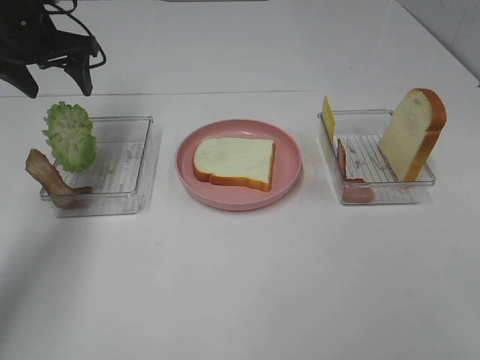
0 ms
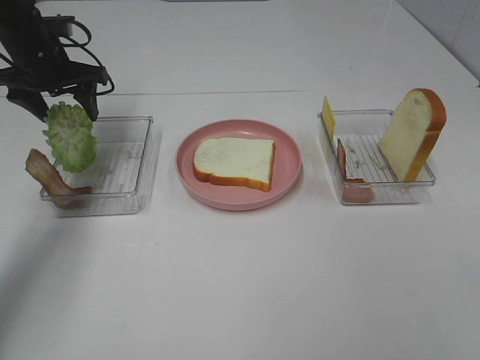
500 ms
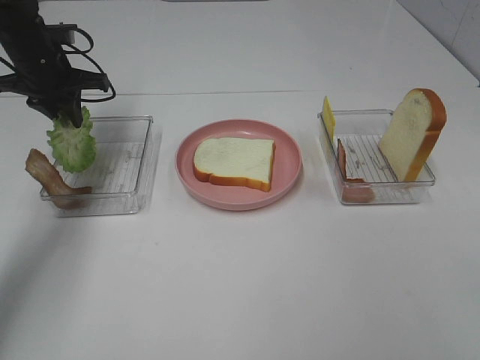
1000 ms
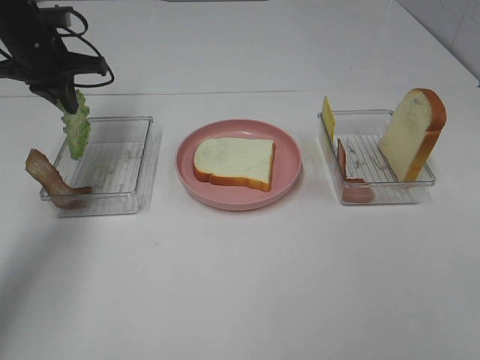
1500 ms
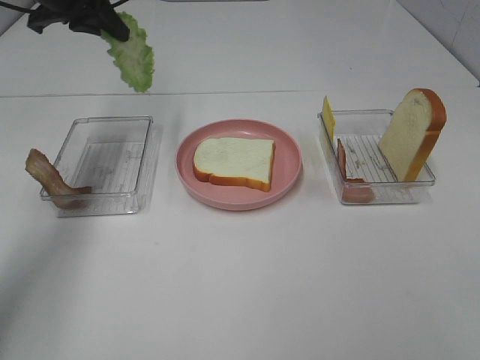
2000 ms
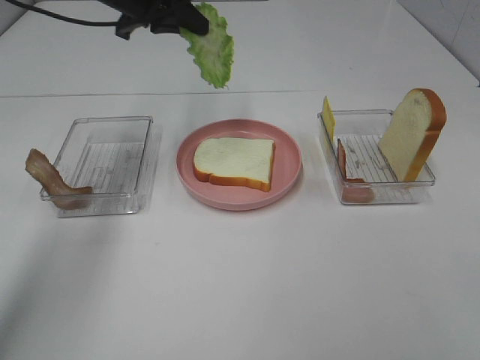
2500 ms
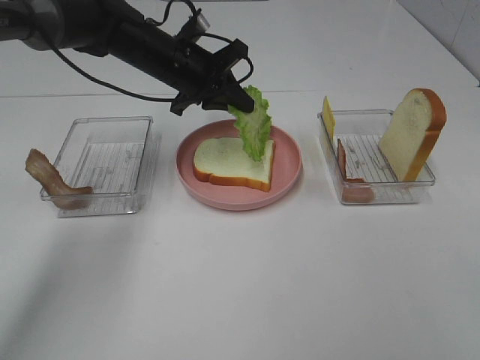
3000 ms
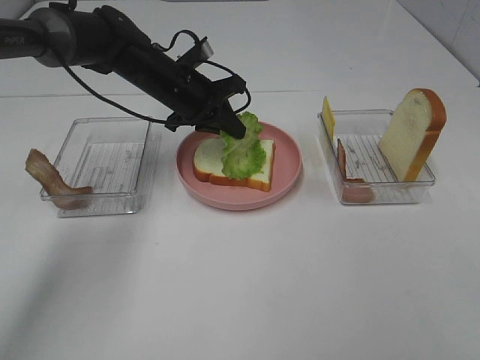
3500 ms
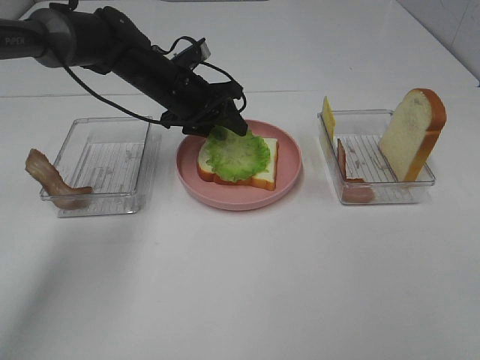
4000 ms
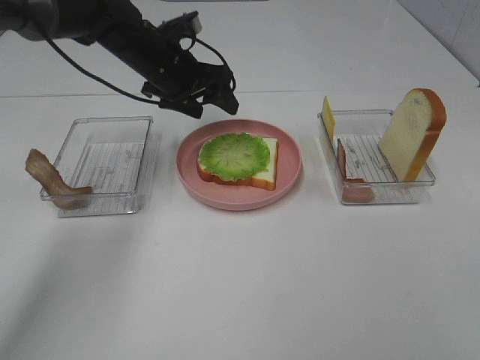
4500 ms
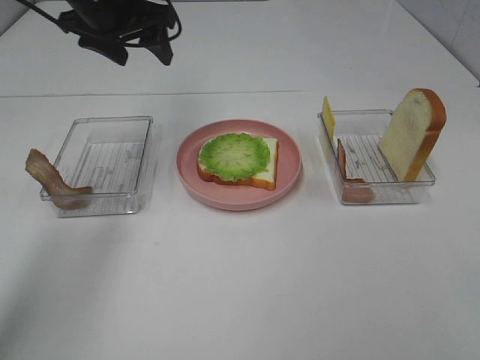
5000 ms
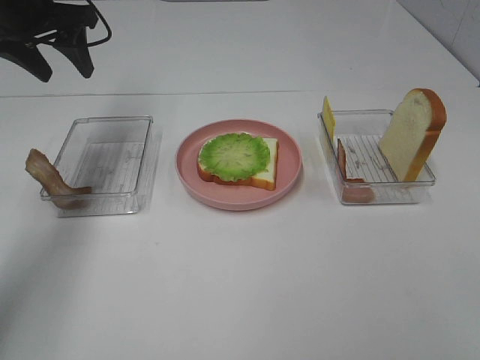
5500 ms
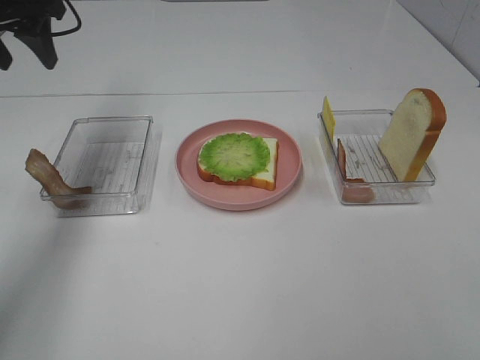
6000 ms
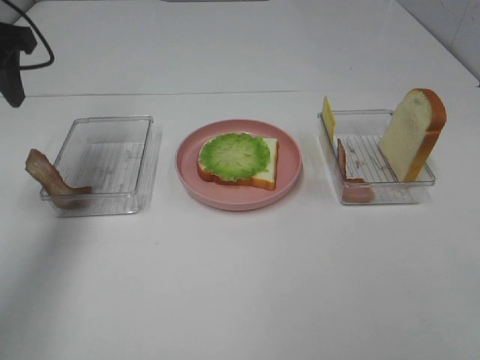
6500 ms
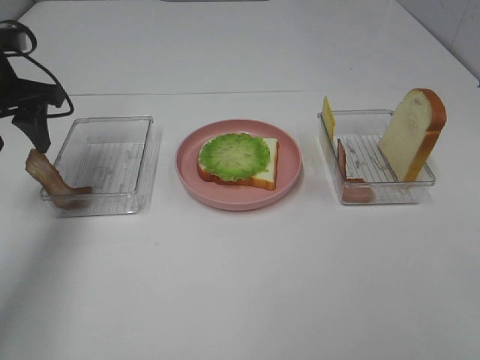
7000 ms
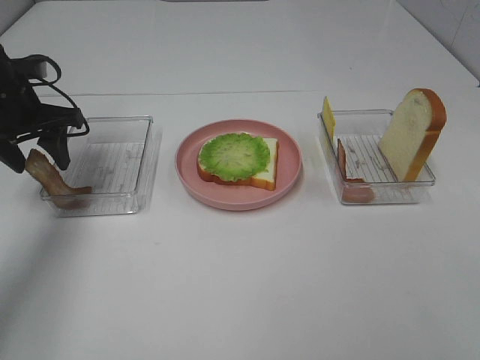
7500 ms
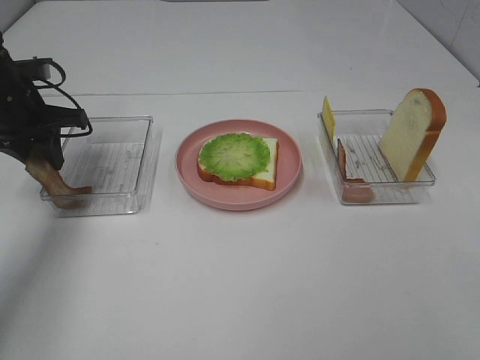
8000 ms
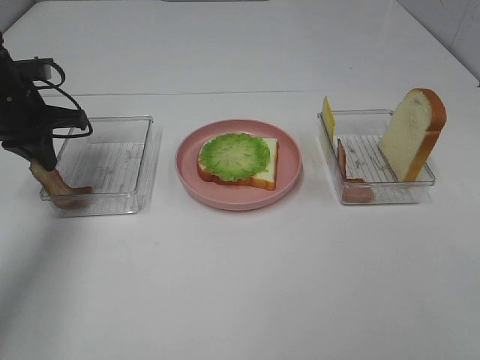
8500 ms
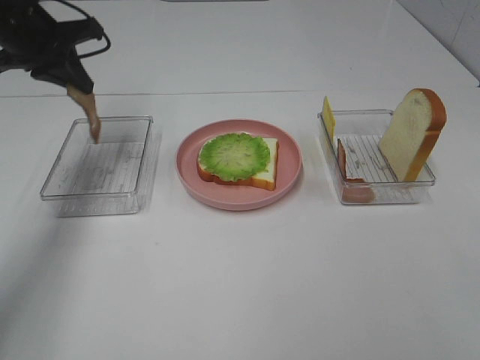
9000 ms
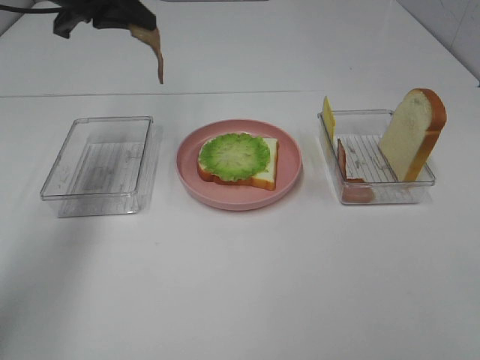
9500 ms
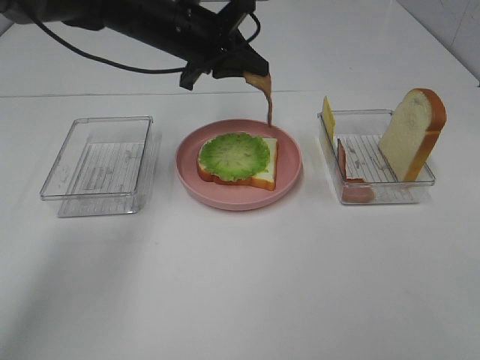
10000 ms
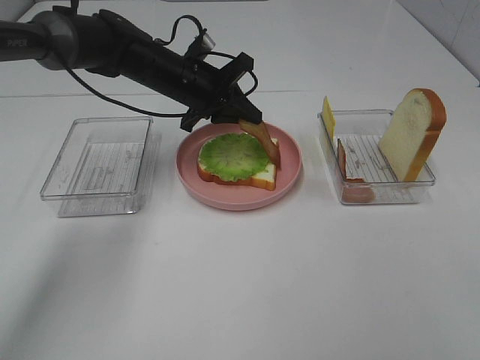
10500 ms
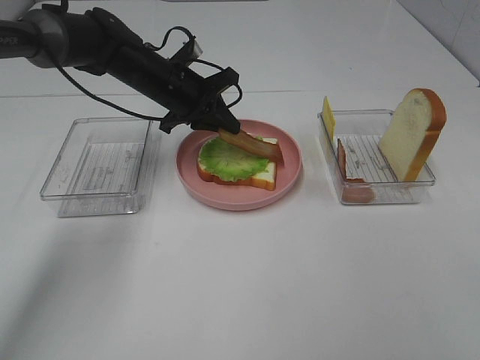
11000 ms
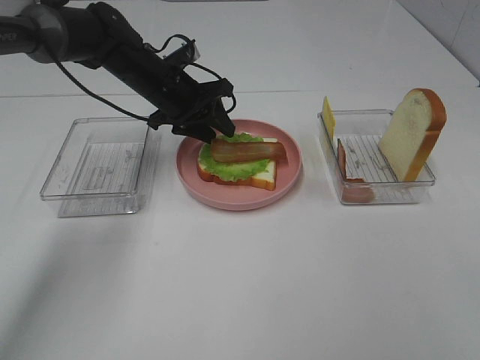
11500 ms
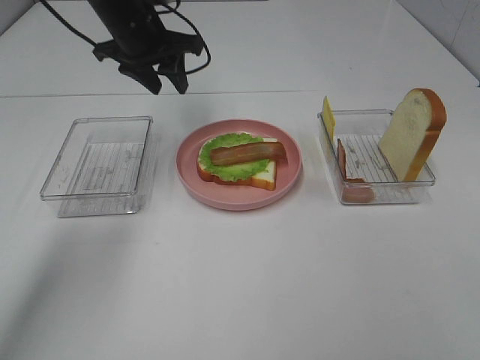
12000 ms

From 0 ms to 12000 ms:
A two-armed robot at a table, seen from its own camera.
Task of the whole recording: Make sandwiches.
Step, from 1500 ms to 4500 ms: Left hand:place the lettuce slice on the bread slice.
Step, from 5000 ms to 8000 ms: Left hand:grab the bacon.
Step, from 8500 ms to 11500 ms: Left hand:place bacon on lettuce slice.
From 0 ms to 2000 ms: The left gripper shifts approximately 5 cm upward, and closes up.
From 2000 ms to 4000 ms: The left gripper shifts some 20 cm downward and to the right, and opens its fingers.
From 4000 ms to 6000 ms: The left gripper is displaced to the left and upward by some 25 cm.
From 6000 ms to 8000 ms: The left gripper heads downward, covering about 15 cm, and closes.
From 8000 ms to 10000 ms: The left gripper travels to the right by roughly 20 cm, and closes.
From 10000 ms to 12000 ms: The left gripper is displaced to the left by about 5 cm, goes downward and returns, approximately 10 cm each way, and opens.

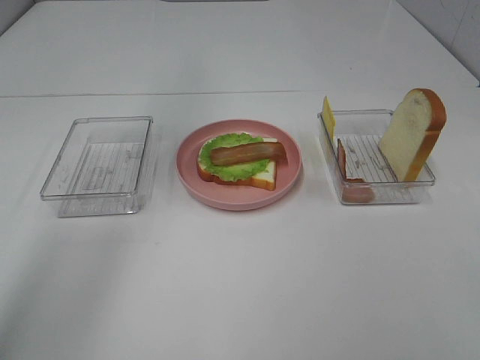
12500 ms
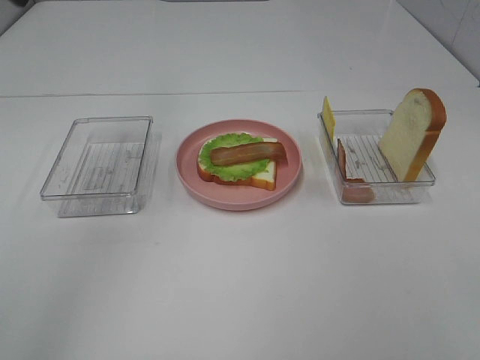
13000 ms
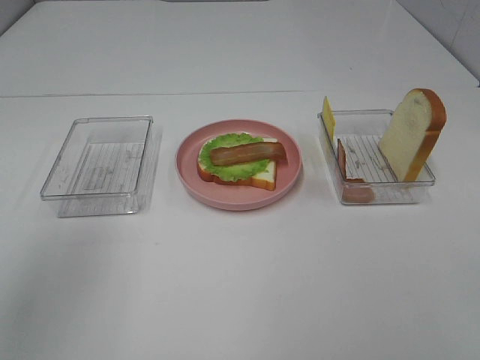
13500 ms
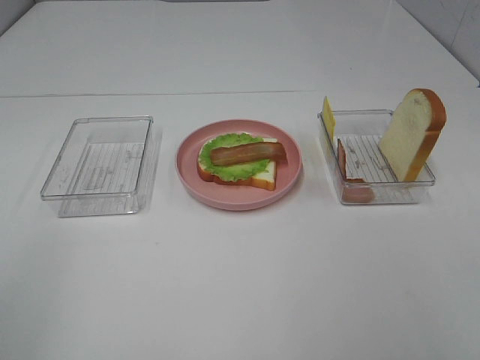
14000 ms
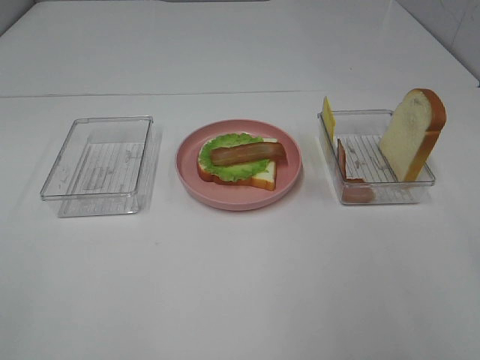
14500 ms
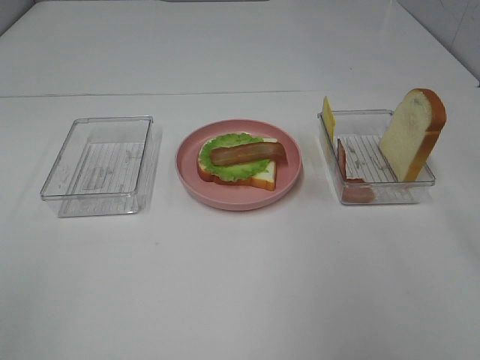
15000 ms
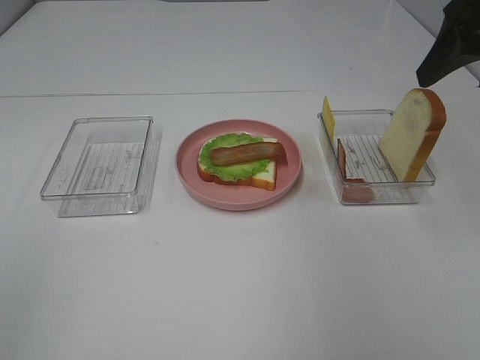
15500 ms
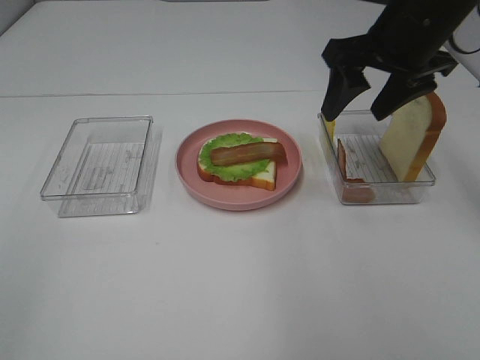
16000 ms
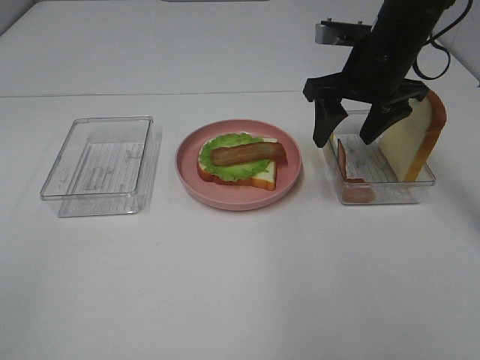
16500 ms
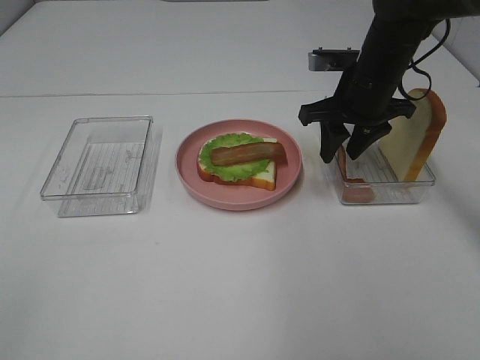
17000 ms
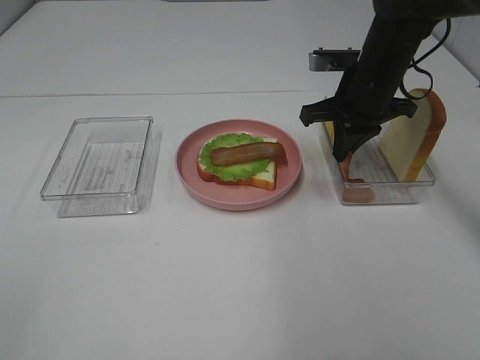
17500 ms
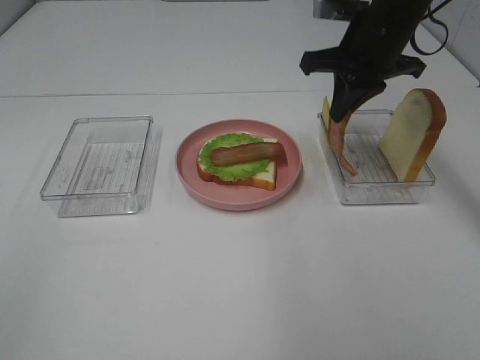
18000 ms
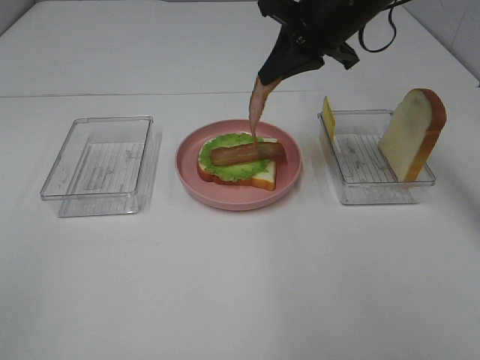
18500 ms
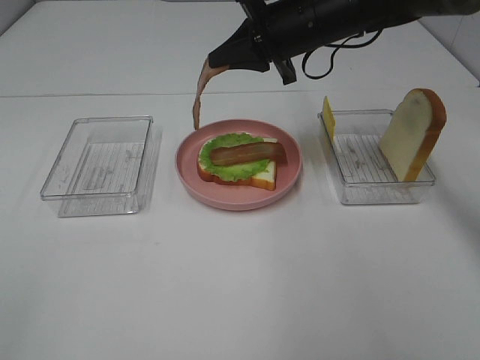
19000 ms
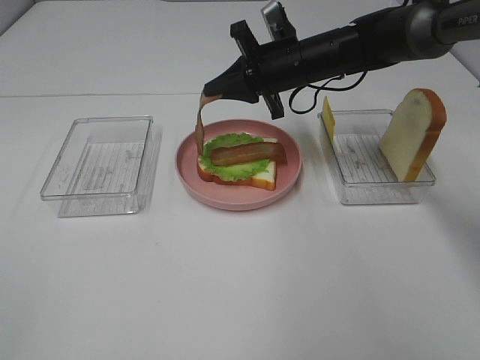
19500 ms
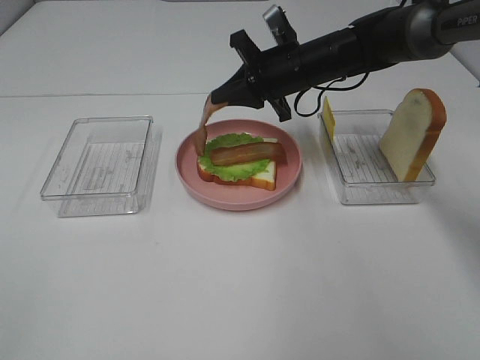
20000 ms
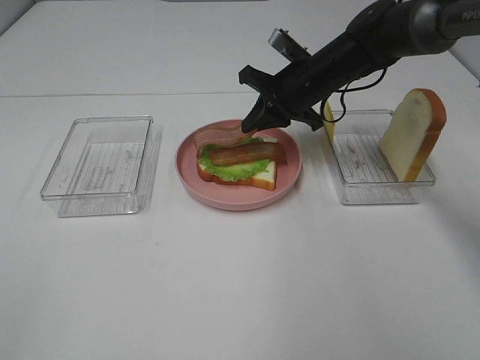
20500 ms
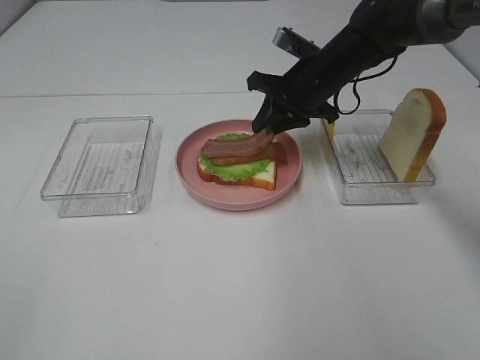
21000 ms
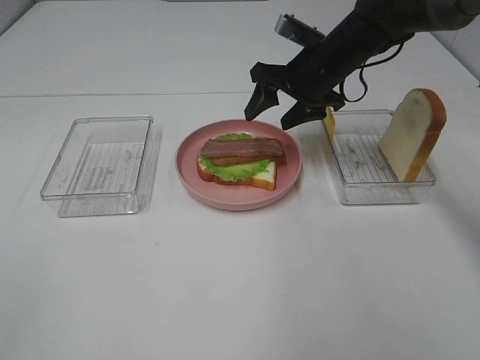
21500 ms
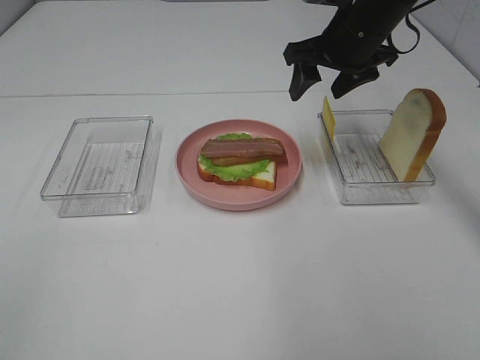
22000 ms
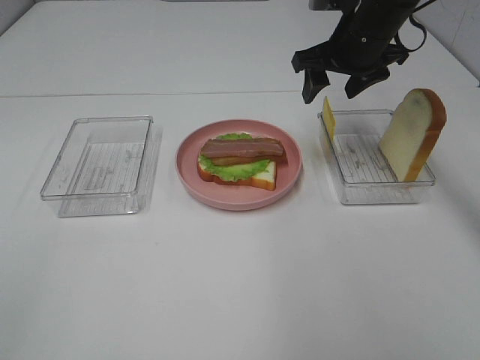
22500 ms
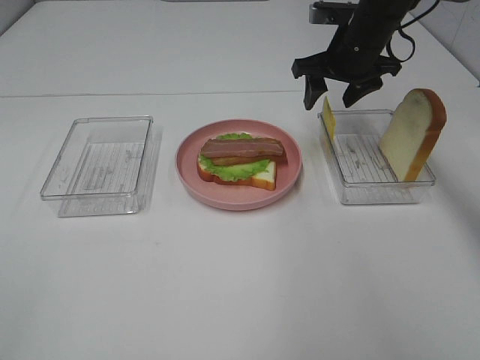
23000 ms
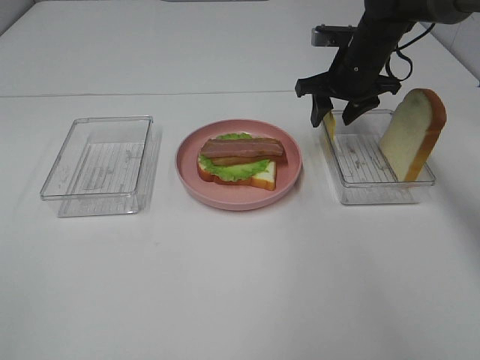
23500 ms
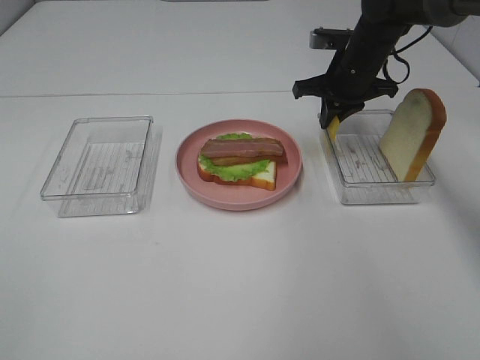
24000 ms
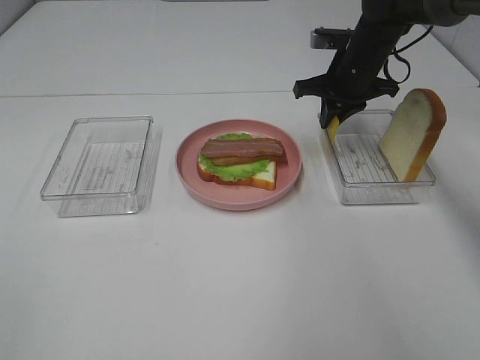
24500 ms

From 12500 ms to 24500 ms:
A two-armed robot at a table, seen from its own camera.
Task of the whole recording: Make sandwiches.
Step, from 12500 ms to 17500 ms: Right hand:grab the bacon.
Step, from 18000 ms to 21500 ms: Right hand:place bacon on bacon.
From 12500 ms to 14500 ms: The left gripper shifts some 40 cm backward.
From 14500 ms to 16500 ms: The right gripper is displaced forward by approximately 30 cm.
From 16500 ms to 18500 ms: The right gripper changes place by some 5 cm, and closes its fingers.
From 18500 ms to 20500 ms: The right gripper heads downward, covering approximately 10 cm.
From 20500 ms to 22500 ms: The right gripper travels upward by about 5 cm, and opens its fingers.
From 22500 ms to 24500 ms: The right gripper heads downward, covering roughly 5 cm, and closes its fingers.

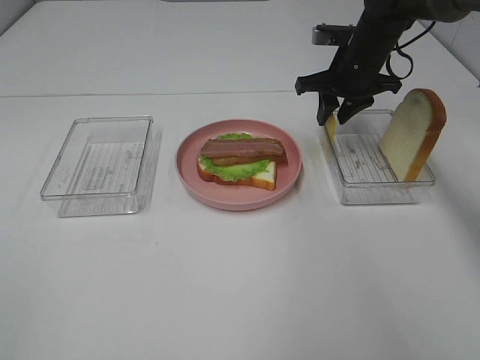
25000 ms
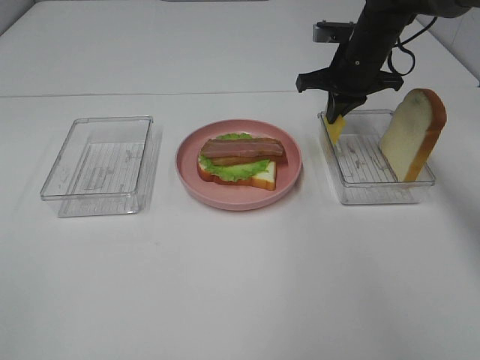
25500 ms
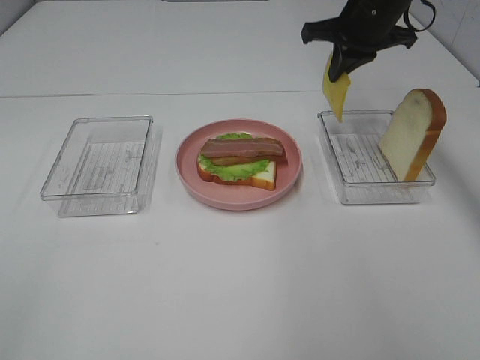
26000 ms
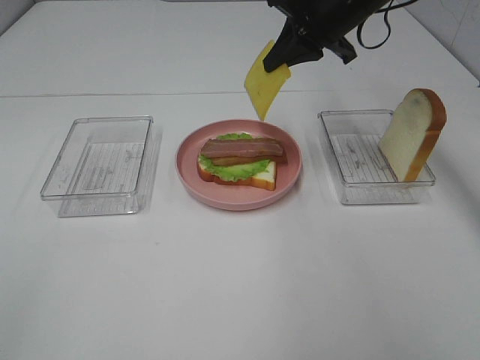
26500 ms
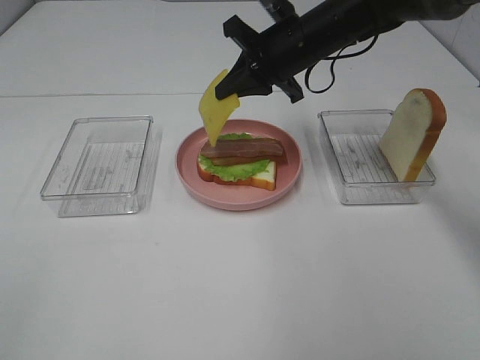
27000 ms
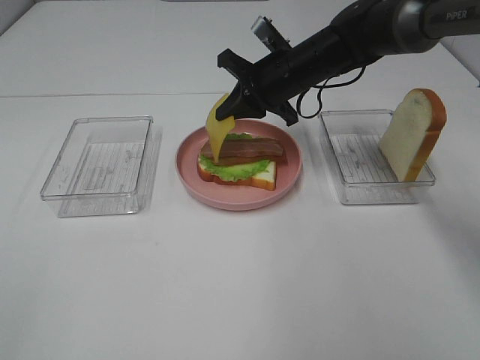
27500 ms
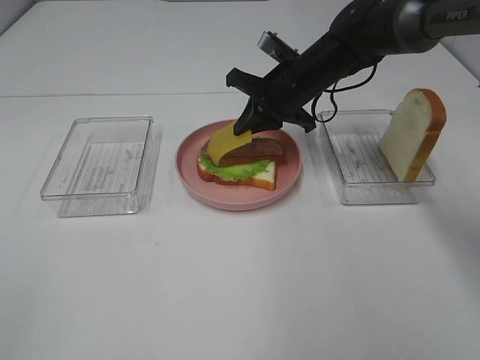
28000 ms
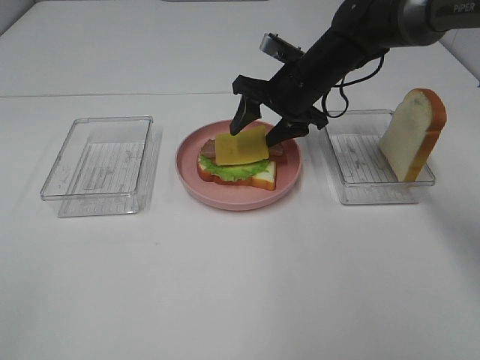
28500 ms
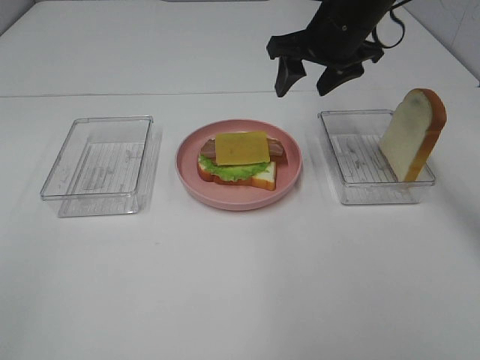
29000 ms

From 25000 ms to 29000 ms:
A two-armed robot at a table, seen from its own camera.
Task of the whole recording: Make sandwiches.
Step, from 25500 ms to 28500 ms: Right hand:place the cheese slice on top of the bacon.
From 25000 ms to 27000 ms: The right gripper is displaced to the left by approximately 10 cm, and closes.
From 27000 ms to 29000 ms: The right gripper moves approximately 5 cm, and opens up.
